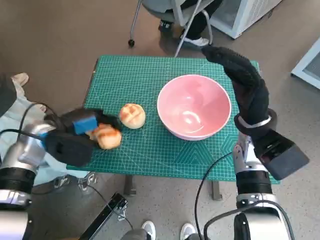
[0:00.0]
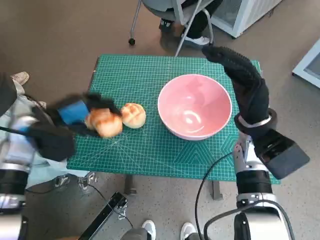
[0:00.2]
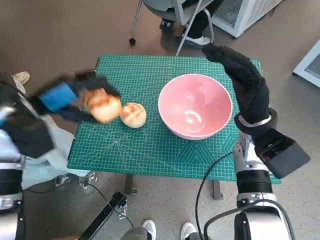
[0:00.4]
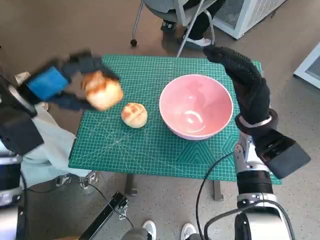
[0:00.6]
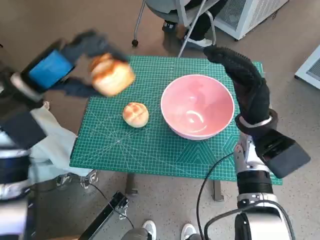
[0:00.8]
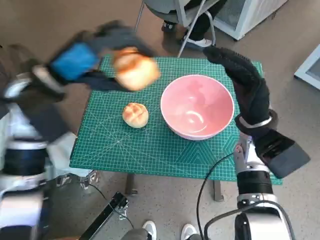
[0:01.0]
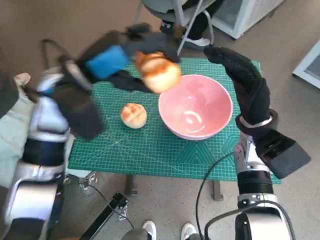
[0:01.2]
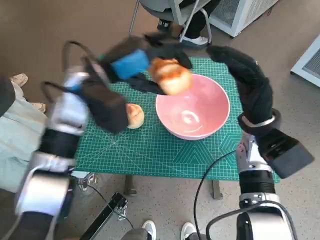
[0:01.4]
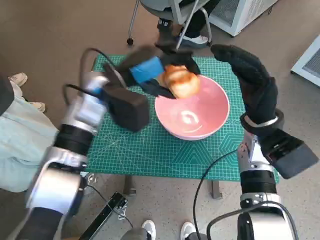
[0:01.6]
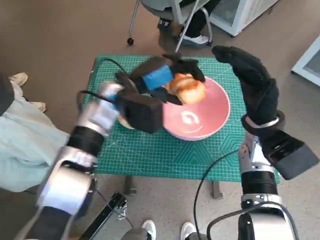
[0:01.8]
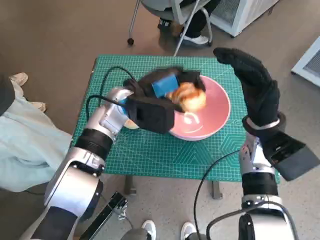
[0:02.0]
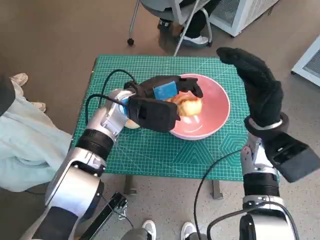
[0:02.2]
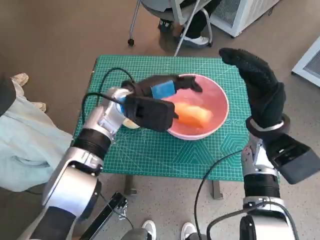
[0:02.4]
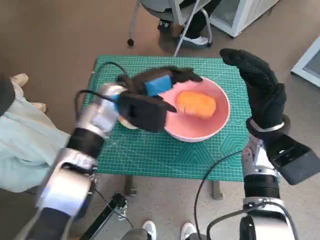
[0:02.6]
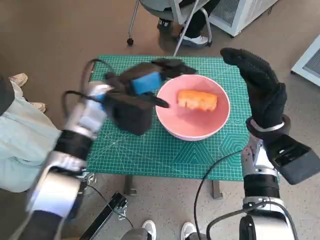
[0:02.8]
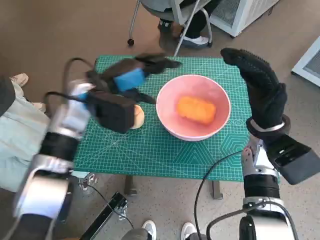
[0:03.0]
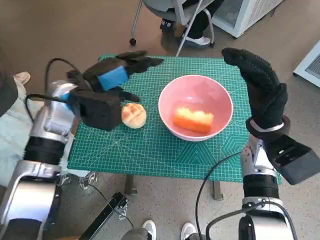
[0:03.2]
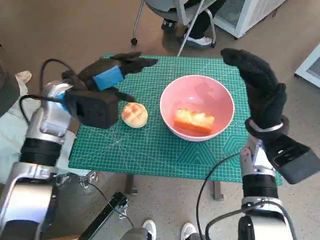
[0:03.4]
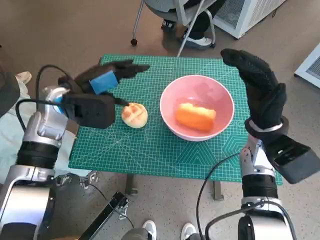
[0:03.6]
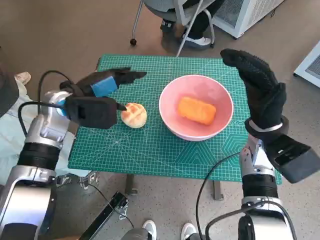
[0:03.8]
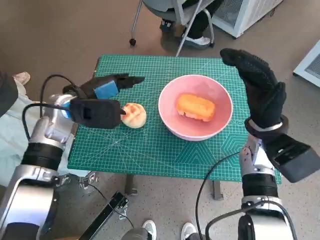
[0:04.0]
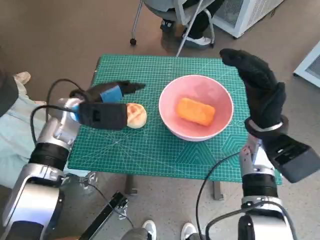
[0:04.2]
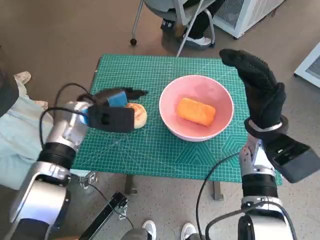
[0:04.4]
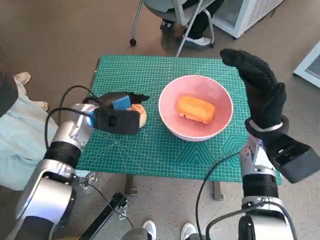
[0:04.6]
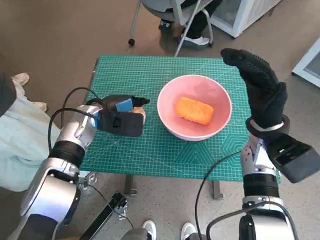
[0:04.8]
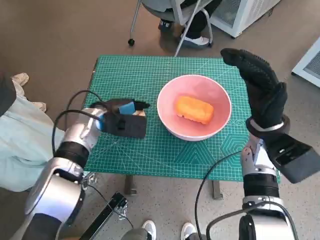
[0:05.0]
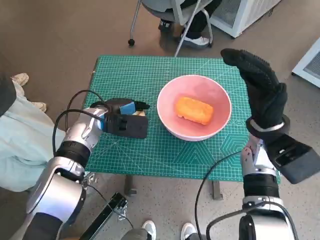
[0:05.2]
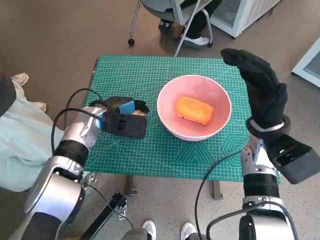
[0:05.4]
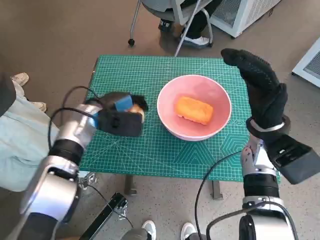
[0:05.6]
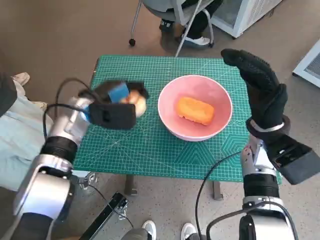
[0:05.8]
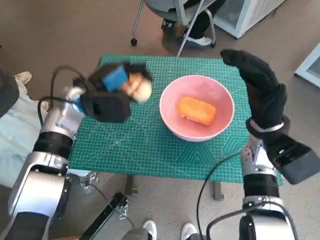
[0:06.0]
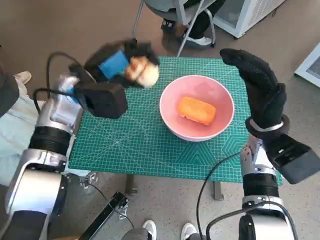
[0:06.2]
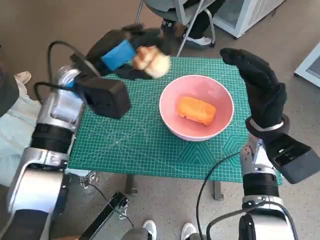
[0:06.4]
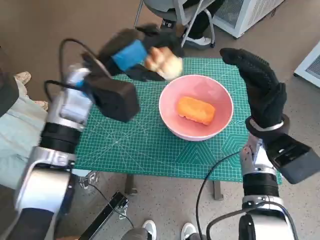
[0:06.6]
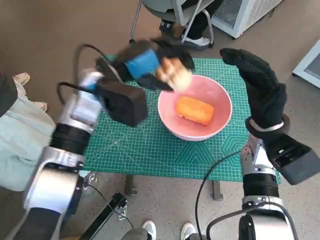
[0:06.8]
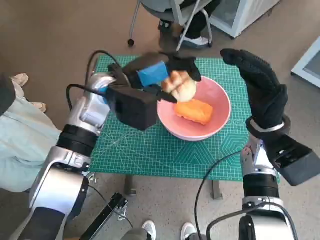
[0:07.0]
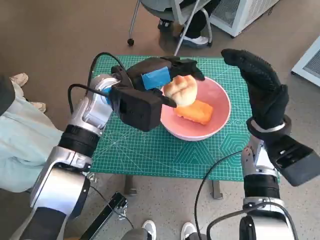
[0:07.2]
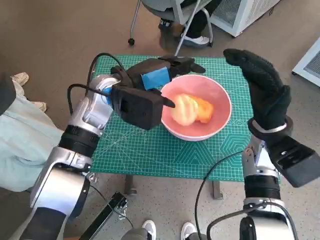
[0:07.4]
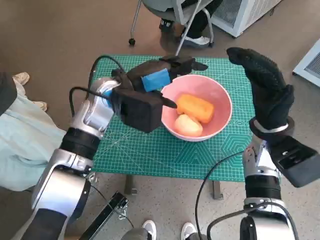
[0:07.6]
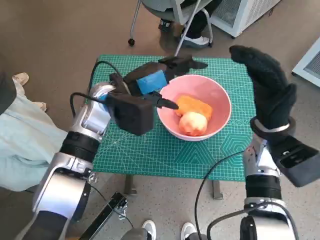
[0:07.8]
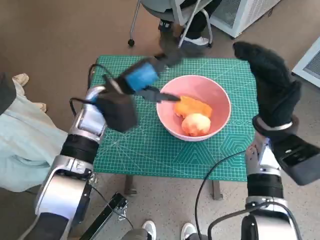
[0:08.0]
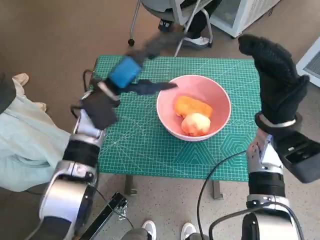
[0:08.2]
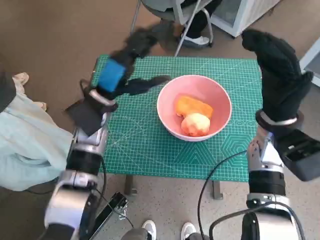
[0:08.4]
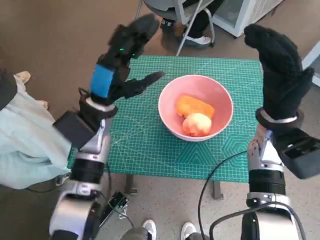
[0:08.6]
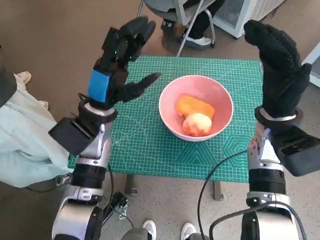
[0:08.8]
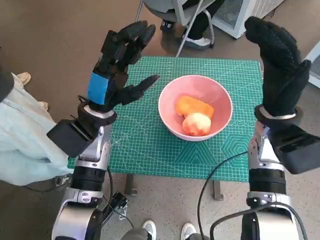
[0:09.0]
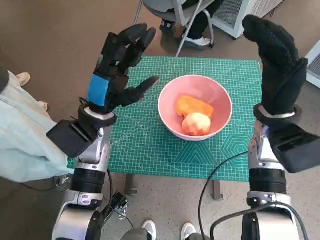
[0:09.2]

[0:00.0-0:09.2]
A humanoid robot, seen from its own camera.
Task of the whole recording: Push the bowl to the center of the table and put the bread into the bowl.
Step, 0:00.0 to 0:02.2: Place the long bread in pink bowl with left hand.
Step, 0:02.6 to 0:05.4: Grasp the round bread with left hand.
Step, 0:05.6 to 0:07.2: Place the round bread in pink bowl with left hand.
0:00.0 to 0:01.6: The left hand goes approximately 15 cm to the right and upward.
0:03.0 to 0:04.6: The left hand is displaced downward by roughly 5 cm.
0:04.6 to 0:06.2: The left hand travels upward by about 5 cm.
0:06.2 to 0:07.6: The left hand heads to the right, covering some 5 cm.
0:07.6 to 0:09.2: The left hand moves roughly 5 cm.

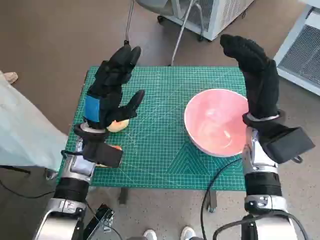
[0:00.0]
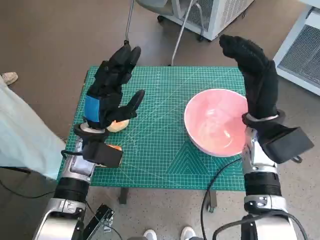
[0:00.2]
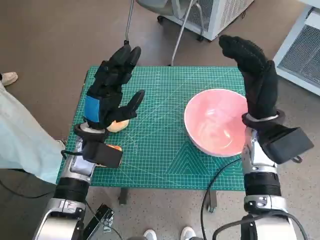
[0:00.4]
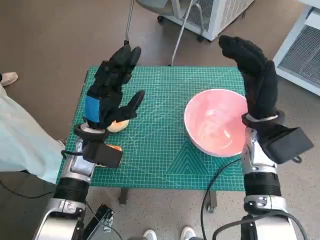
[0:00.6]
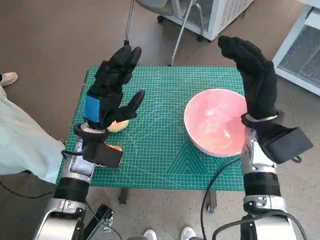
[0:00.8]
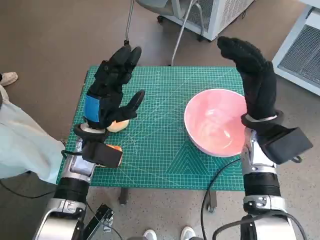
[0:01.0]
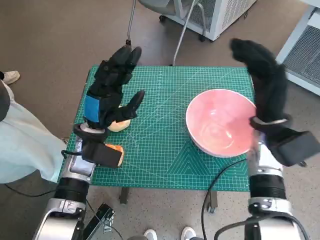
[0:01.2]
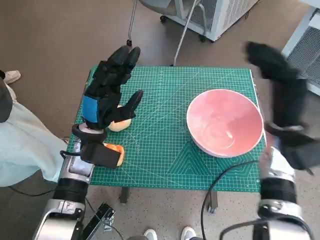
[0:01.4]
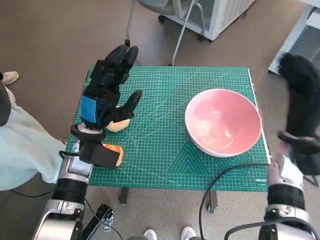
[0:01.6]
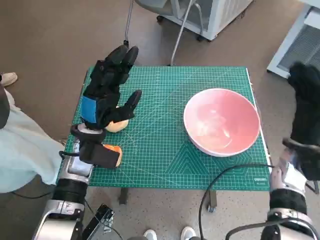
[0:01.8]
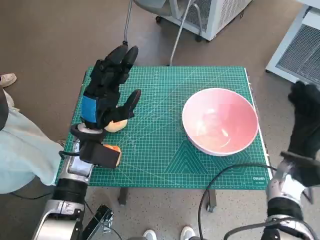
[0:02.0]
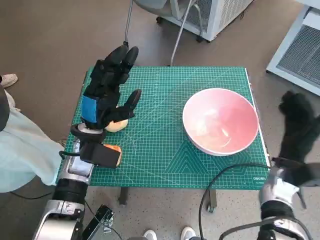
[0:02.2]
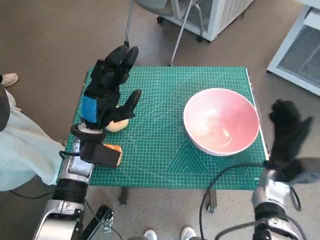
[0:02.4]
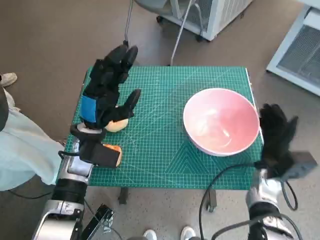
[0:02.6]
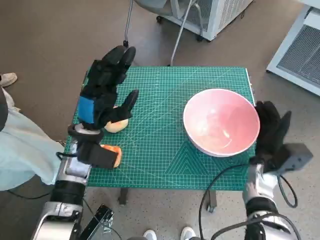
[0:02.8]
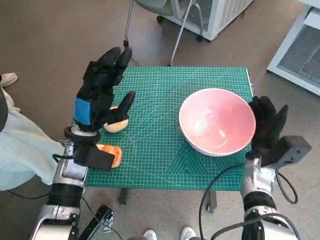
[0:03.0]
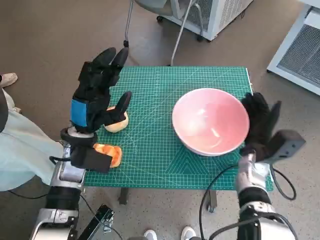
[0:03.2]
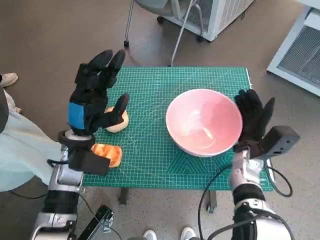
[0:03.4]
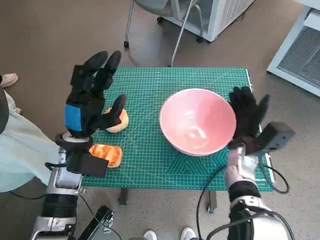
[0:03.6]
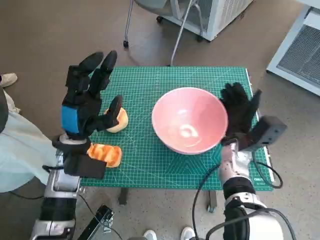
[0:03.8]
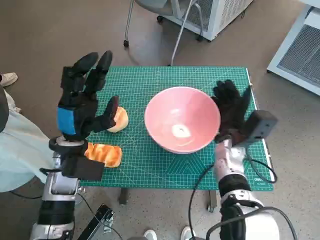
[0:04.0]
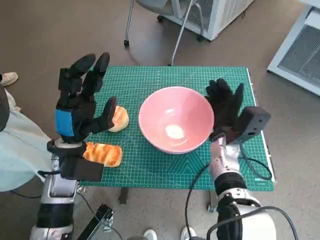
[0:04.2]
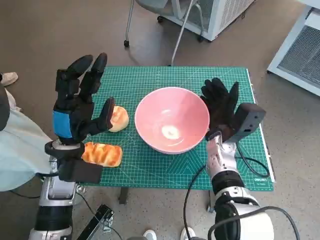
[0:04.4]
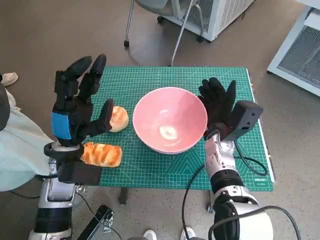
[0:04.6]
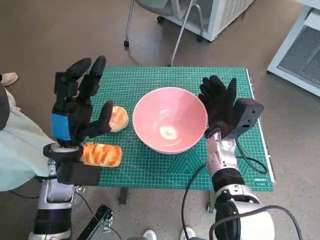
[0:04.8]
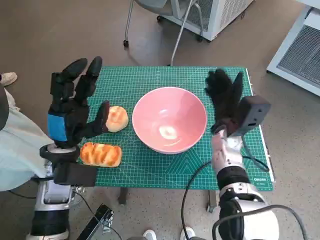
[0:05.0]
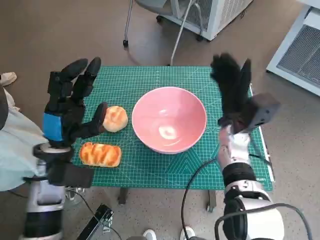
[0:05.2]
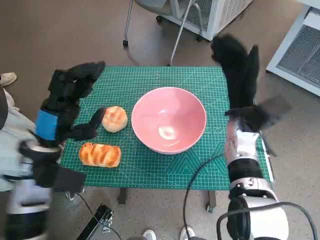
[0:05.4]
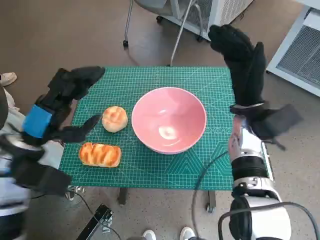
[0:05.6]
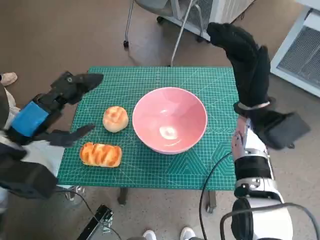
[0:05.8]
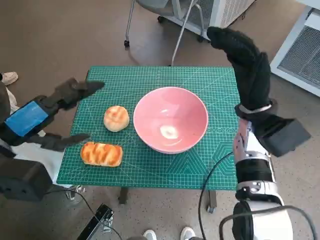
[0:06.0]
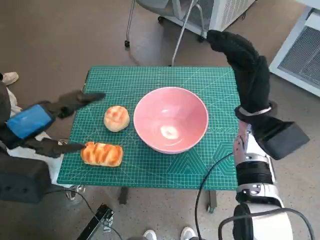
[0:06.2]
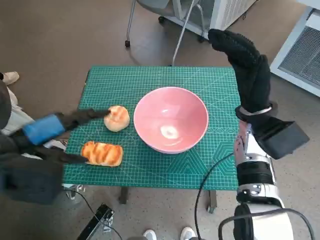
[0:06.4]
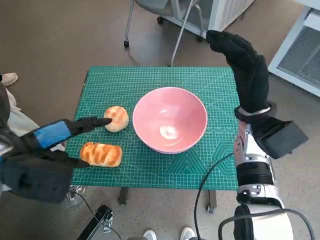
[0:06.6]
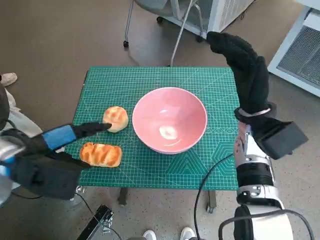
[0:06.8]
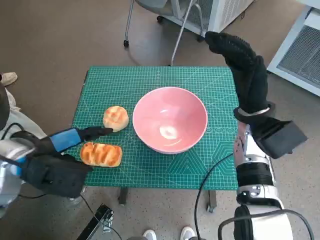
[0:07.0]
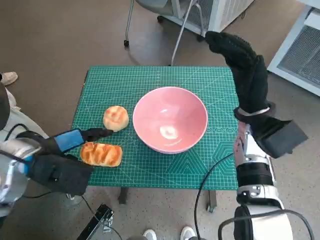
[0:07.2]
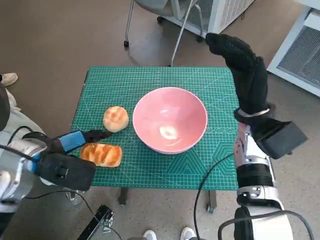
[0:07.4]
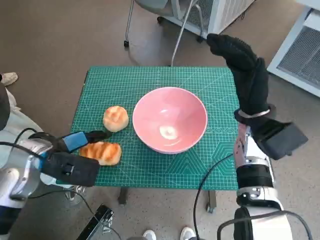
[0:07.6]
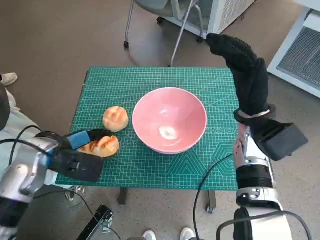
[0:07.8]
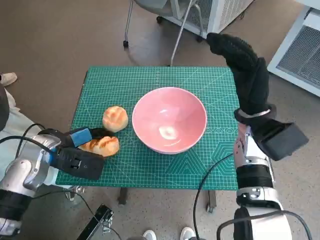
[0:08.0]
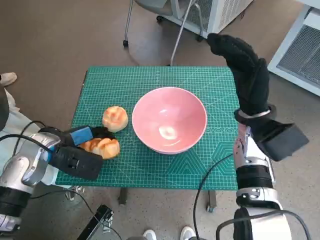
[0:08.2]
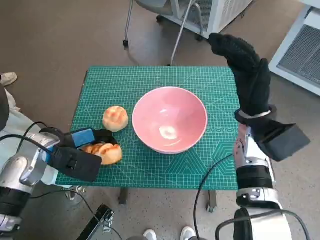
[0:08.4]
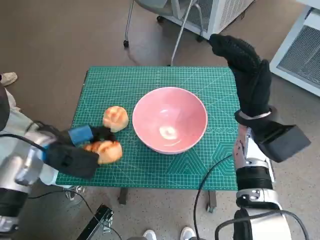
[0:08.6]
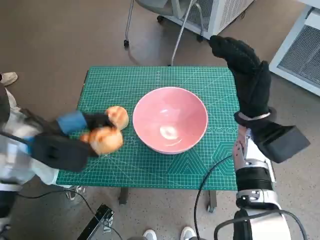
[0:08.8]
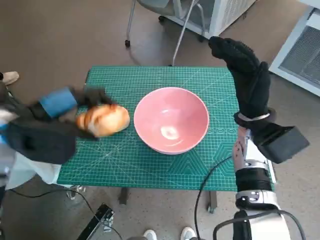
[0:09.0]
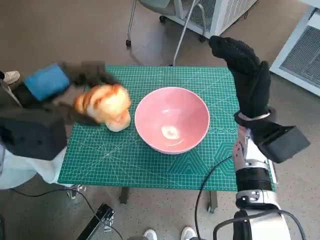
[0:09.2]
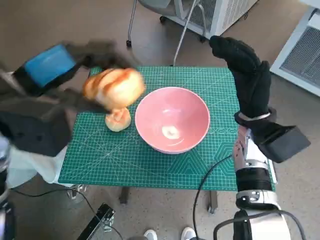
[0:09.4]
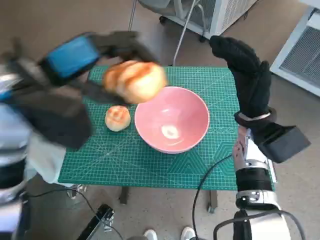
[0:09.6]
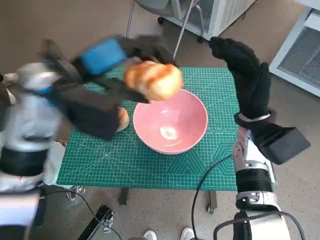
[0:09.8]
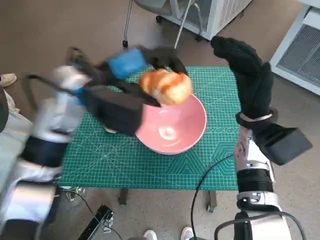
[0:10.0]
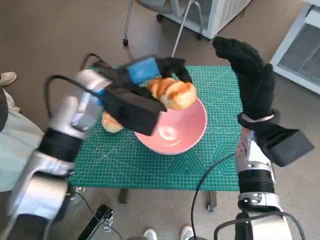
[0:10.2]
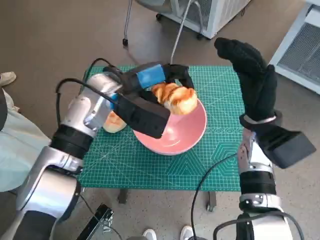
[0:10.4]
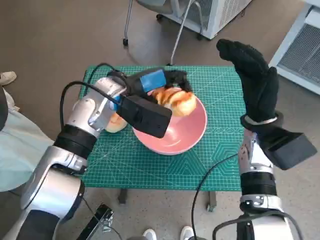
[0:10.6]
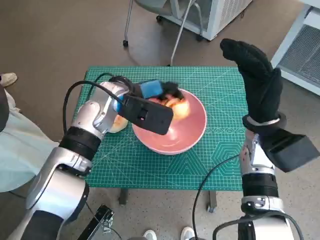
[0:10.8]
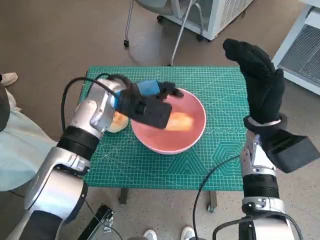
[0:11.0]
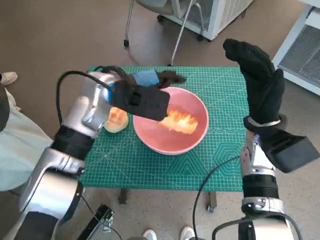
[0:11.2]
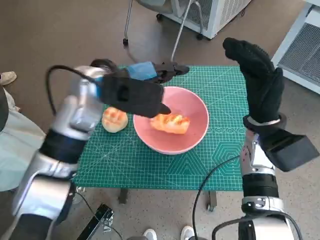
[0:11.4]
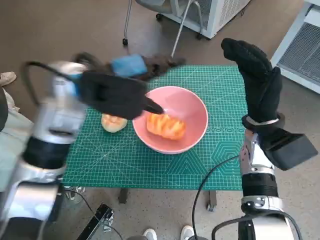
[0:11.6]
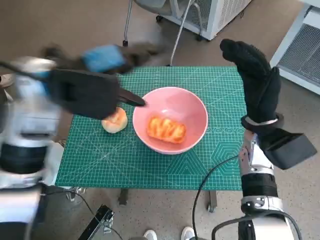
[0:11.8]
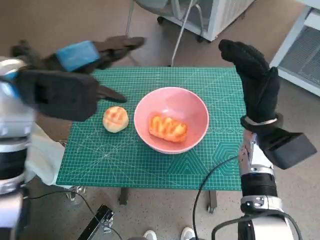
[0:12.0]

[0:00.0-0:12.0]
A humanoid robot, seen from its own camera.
Task of the whole recording: Push the bowl to the center of the table and put the bread into the bowl.
Step, 0:00.0 to 0:04.8: Move the pink bowl to the center of table with right hand.
Step, 0:05.0 to 0:08.0: Grasp the long bread with left hand.
Step, 0:08.2 to 0:11.6: Place the long bread in pink bowl with left hand.
0:01.6 to 0:03.0: The right hand goes roughly 10 cm downward.
0:03.0 to 0:04.4: The right hand is displaced to the left by roughly 10 cm.
0:04.4 to 0:06.0: The right hand goes roughly 10 cm upward. Meanwhile the left hand shifts roughly 15 cm upward and to the left.
0:06.0 to 0:07.6: The left hand travels downward by approximately 10 cm.
0:07.6 to 0:09.0: The left hand goes some 10 cm upward.
0:09.0 to 0:10.4: The left hand travels to the right and forward by roughly 15 cm.
0:10.4 to 0:12.0: The left hand moves upward, to the left and backward, approximately 15 cm.

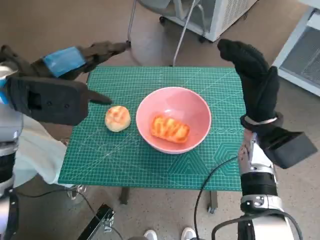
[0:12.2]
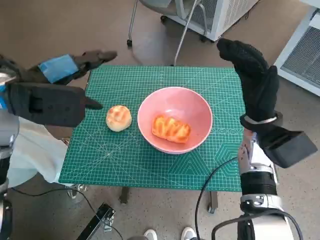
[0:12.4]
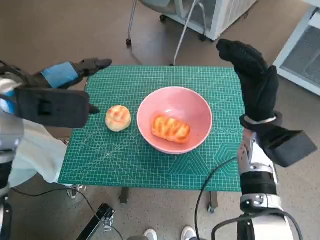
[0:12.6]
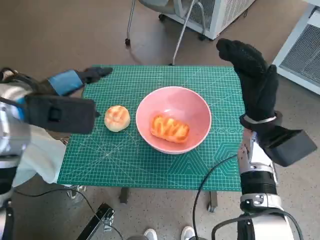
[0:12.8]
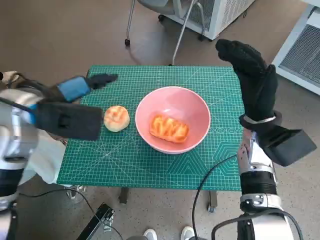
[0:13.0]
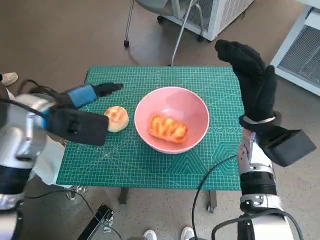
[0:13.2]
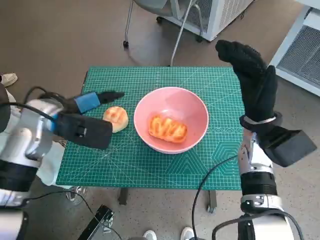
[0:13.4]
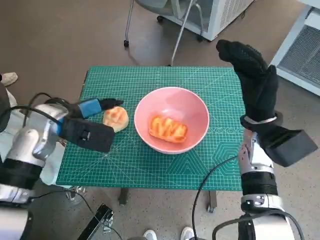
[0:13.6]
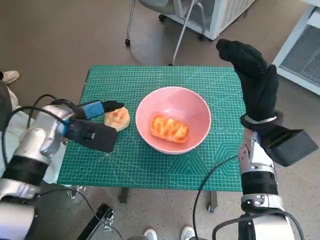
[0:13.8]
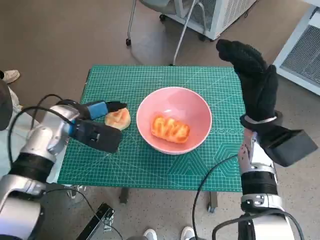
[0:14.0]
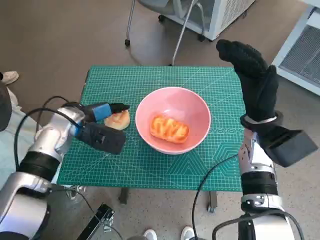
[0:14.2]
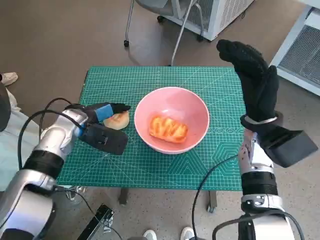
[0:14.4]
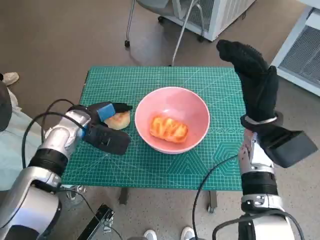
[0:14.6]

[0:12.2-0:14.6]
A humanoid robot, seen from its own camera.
Task of the whole recording: Push the bowl to the center of the table and put the bread into the bowl.
Step, 0:12.2 to 0:14.6: Grasp the round bread with left hand.
0:12.2 to 0:13.4: The left hand travels downward by about 10 cm.
0:13.4 to 0:14.6: The left hand heads downward, covering about 10 cm.
